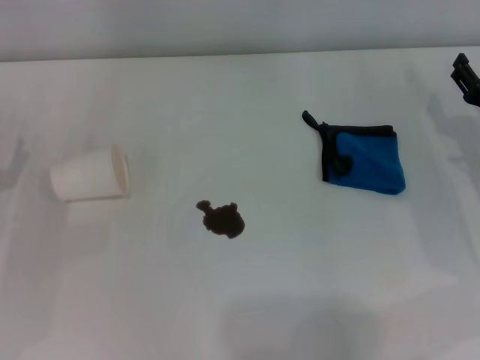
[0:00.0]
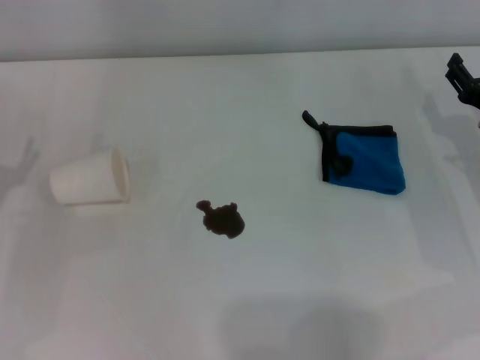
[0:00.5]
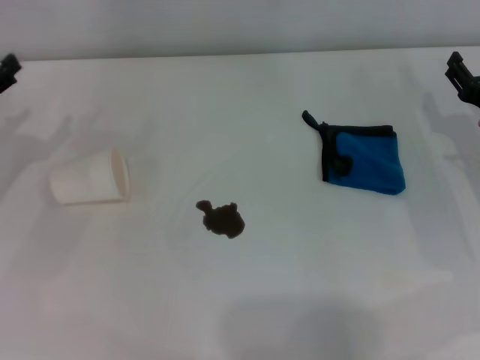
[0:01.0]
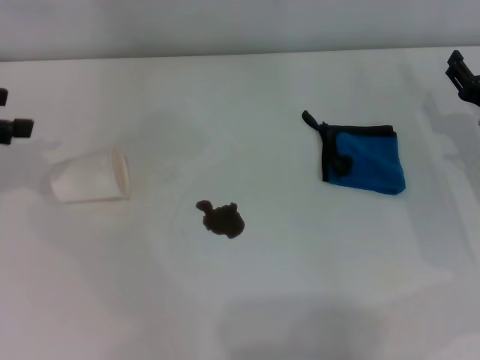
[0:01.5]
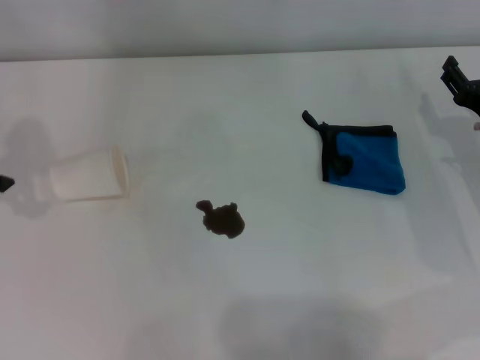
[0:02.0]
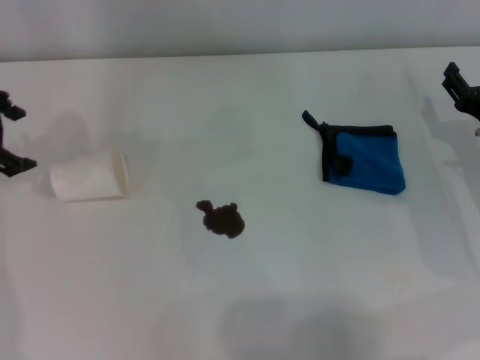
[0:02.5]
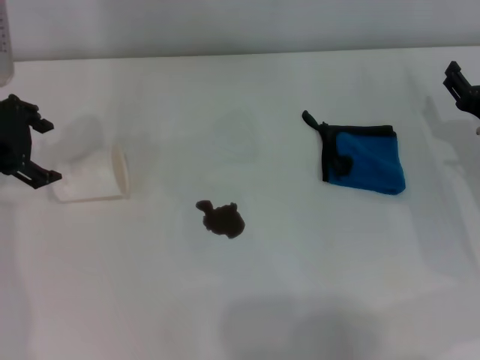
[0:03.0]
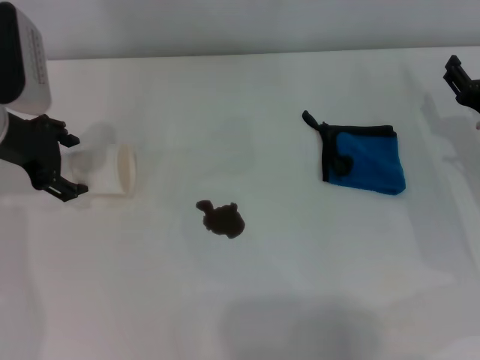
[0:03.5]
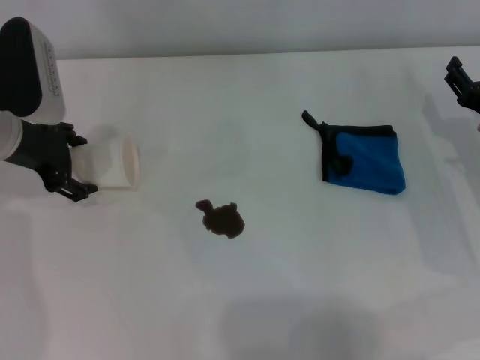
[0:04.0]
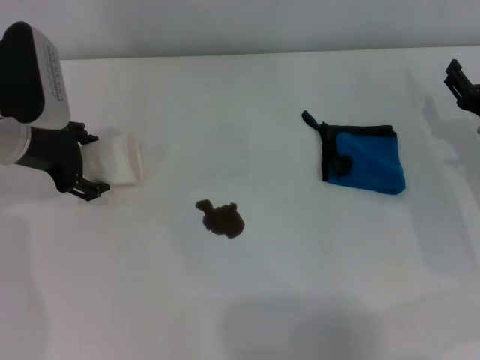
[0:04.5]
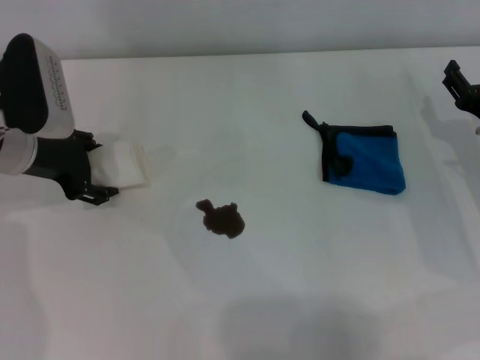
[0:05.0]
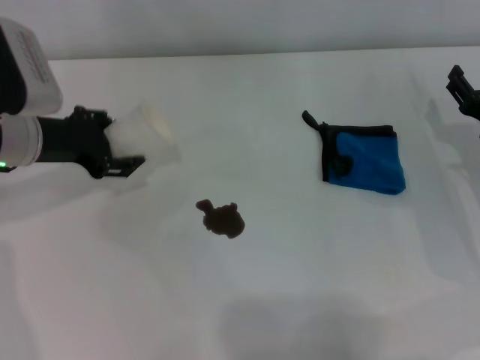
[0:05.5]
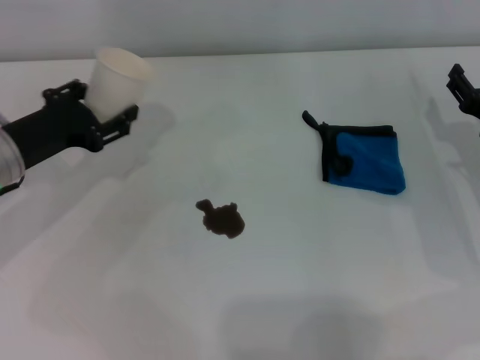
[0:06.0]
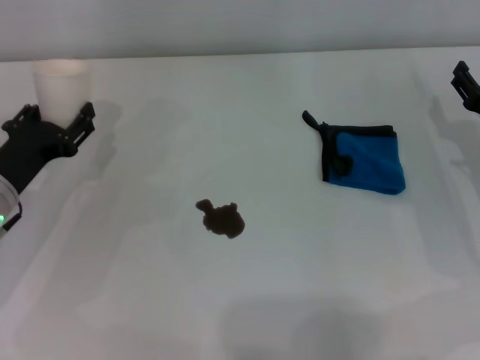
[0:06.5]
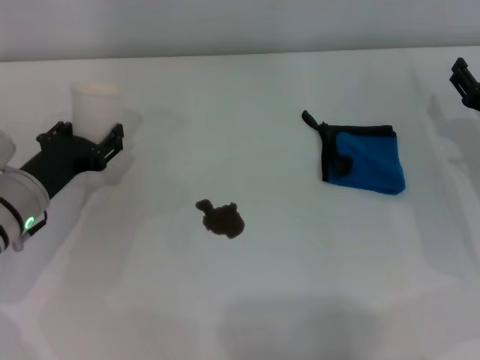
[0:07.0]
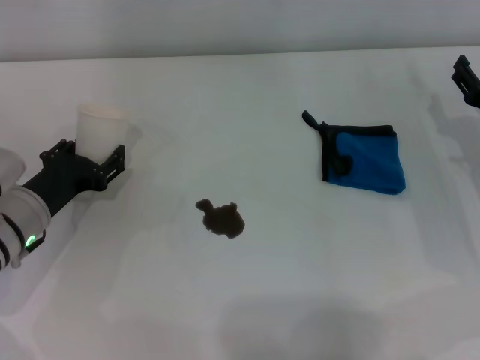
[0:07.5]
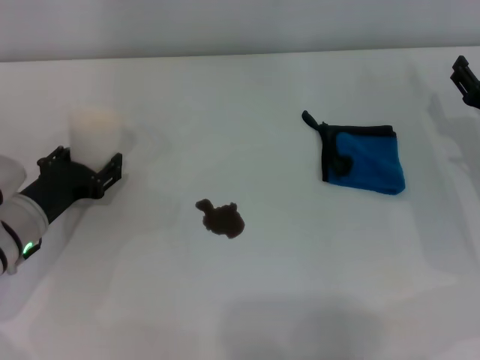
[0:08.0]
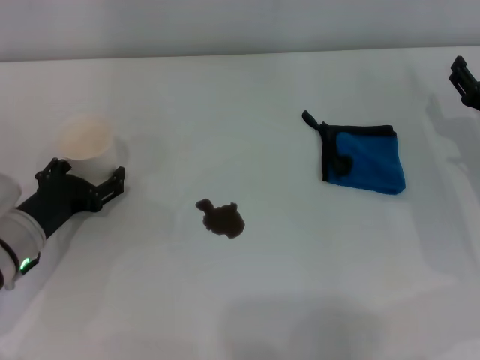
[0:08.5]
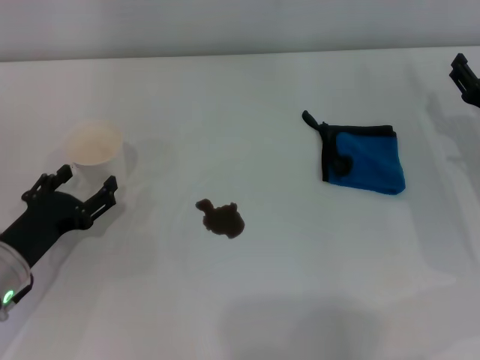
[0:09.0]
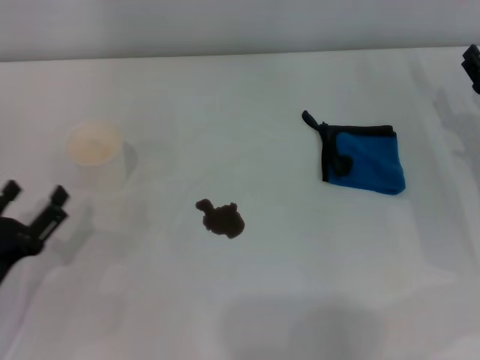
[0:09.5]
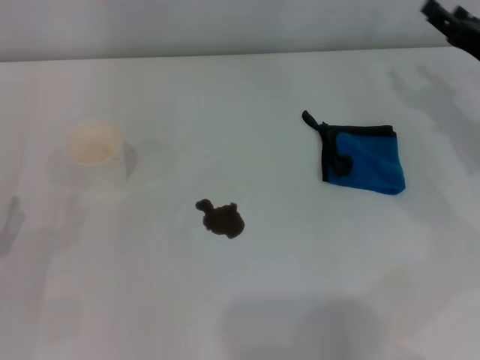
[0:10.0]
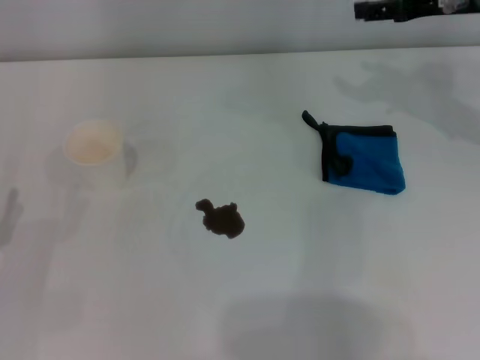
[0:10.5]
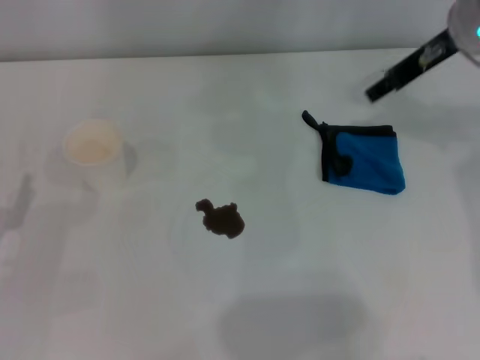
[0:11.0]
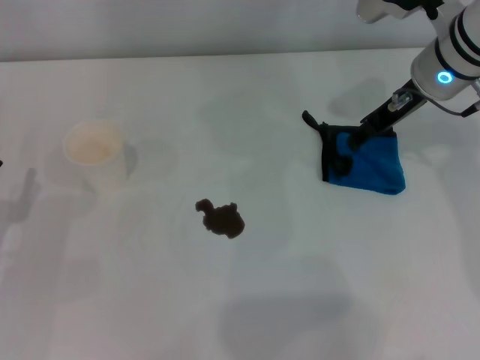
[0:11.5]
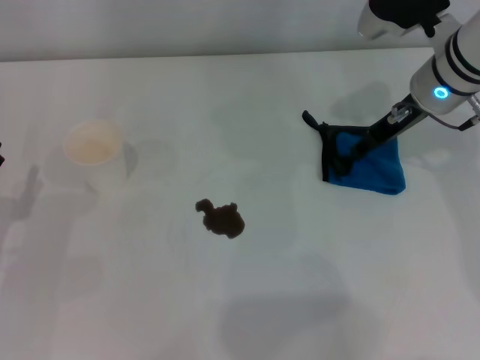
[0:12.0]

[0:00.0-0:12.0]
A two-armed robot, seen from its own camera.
Step, 0:00.0 to 0:03.0: Grasp the paper cup with the left gripper.
Step, 0:03.5 to 0:08.5: Stand the paper cup upright with the left gripper.
0:02.0 to 0:04.0: The left gripper travels to the right and downward by roughly 10 cm.
0:04.0 to 0:06.0: The left gripper heads backward, covering about 5 cm, and closes.
0:06.0 to 0:08.0: The left gripper goes about 5 cm downward.
0:08.0 to 0:10.0: The left gripper moves backward and to the left, about 15 cm, and opens its fingers. The right gripper heads upward, covering some 5 cm.
0:10.0 to 0:12.0: The right gripper travels to the left and forward by roughly 10 cm.

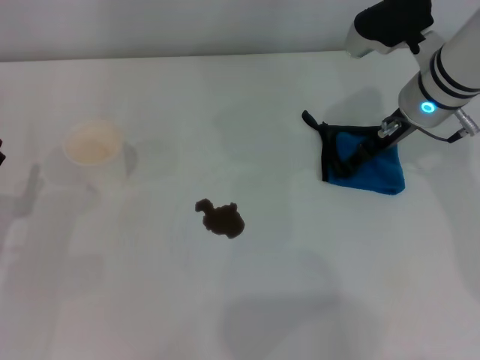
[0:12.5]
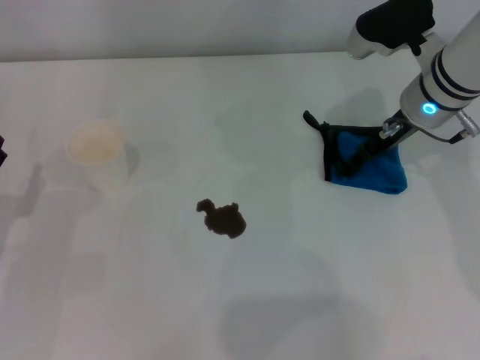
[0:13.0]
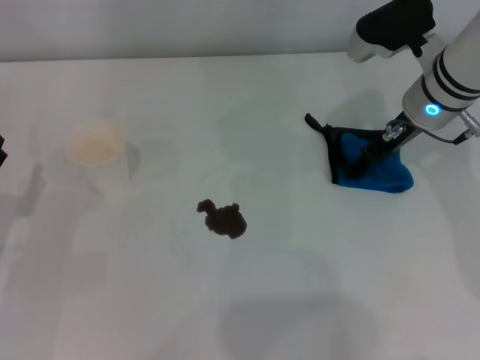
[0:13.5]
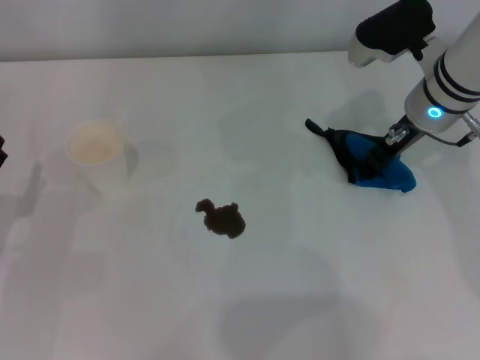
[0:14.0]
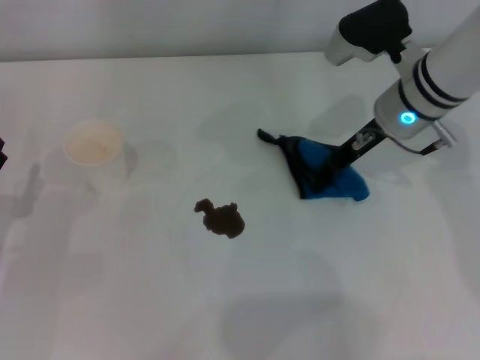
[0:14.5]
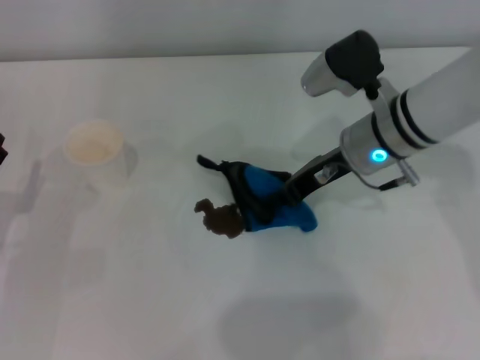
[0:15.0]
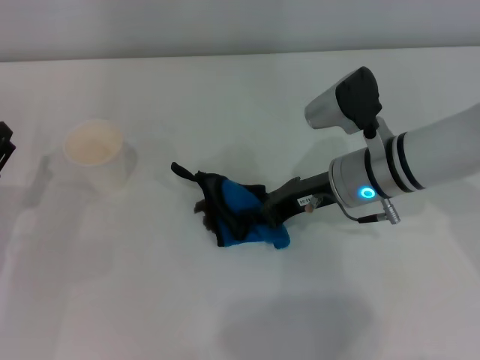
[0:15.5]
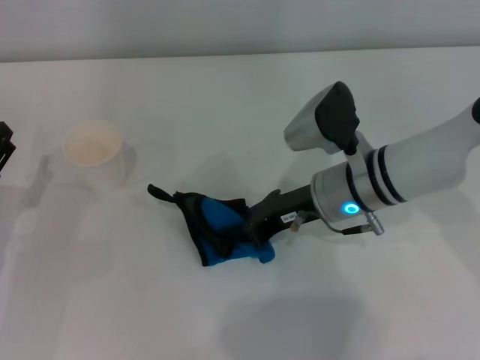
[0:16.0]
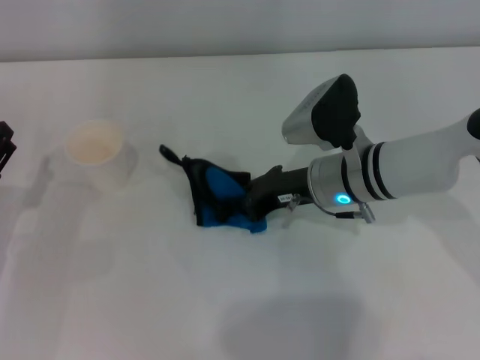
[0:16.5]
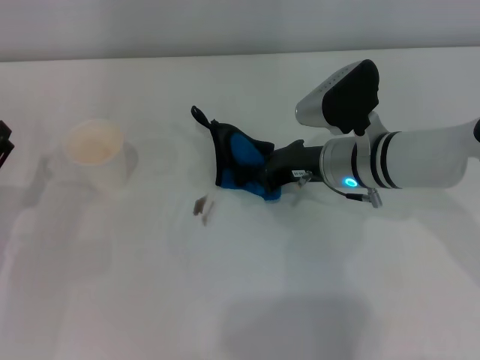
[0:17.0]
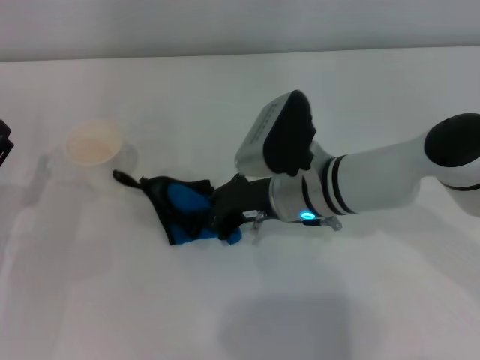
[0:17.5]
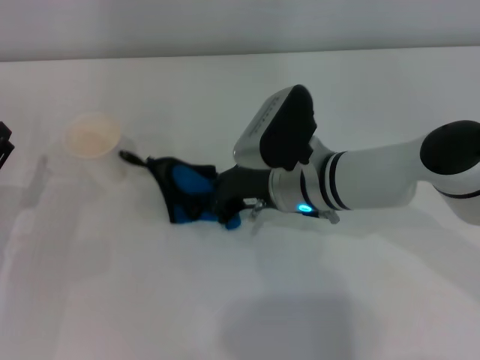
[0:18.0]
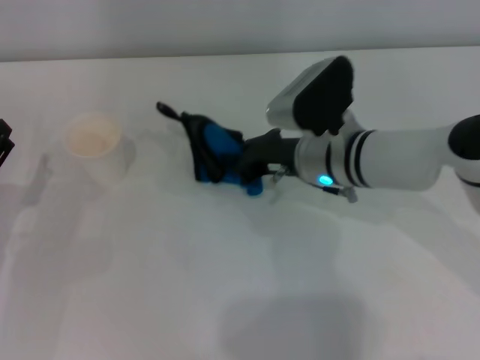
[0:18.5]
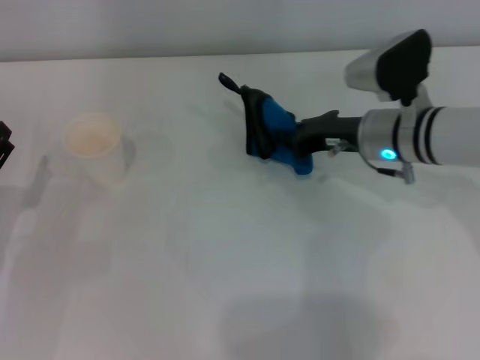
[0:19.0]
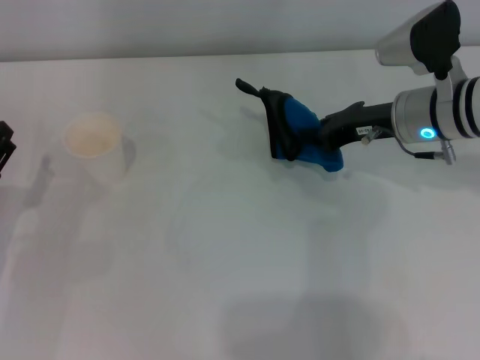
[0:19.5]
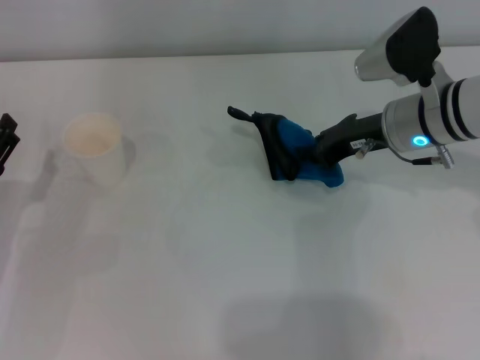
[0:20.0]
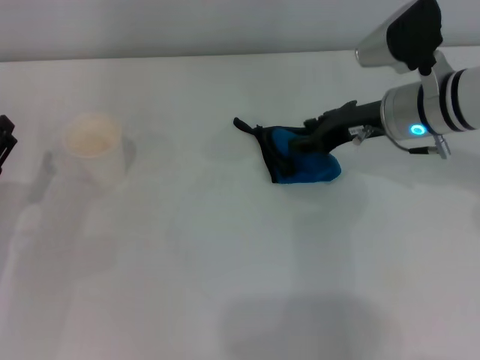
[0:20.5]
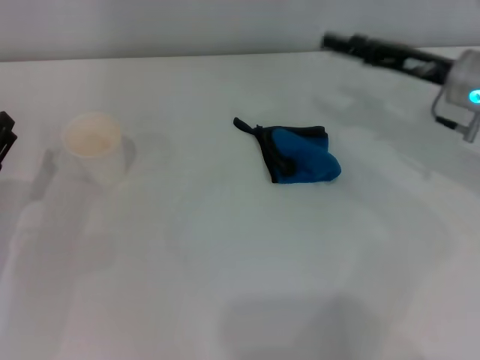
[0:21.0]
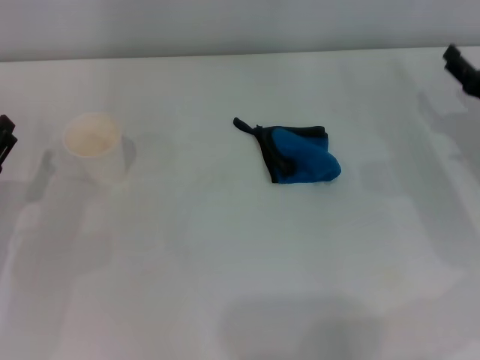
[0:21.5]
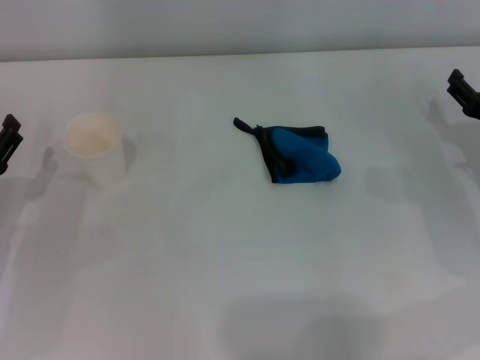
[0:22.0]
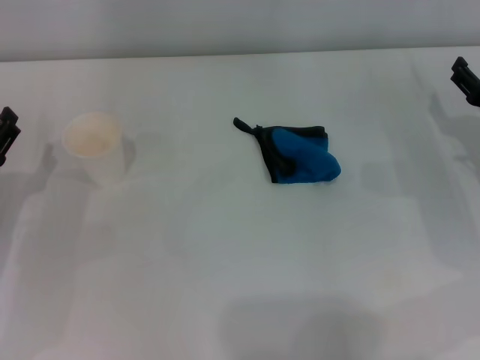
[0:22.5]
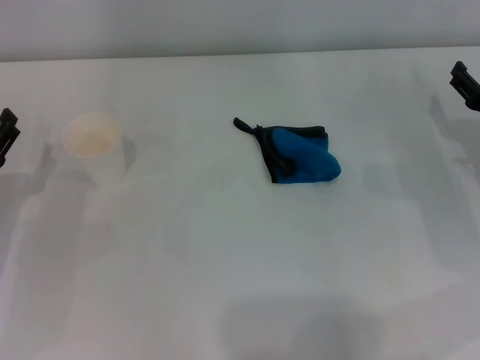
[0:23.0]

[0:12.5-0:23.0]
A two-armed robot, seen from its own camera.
Step, 0:14.0 to 0:18.5: Wipe the stains off the table with the right gripper.
Step, 0:19.0 to 0:20.5: Place the rag on the table with the right gripper.
0:12.5 to 0:14.5: The right gripper closes up.
0:14.5 to 0:16.5: The right gripper travels downward, to the left and backward by about 10 cm.
0:16.5 to 0:19.0: The right gripper shifts approximately 5 cm to the right.
0:19.0 to 0:21.0: The right gripper moves to the right, some 10 cm, and opens up.
0:21.0 to 0:23.0: The right gripper moves downward, backward and to the right, roughly 10 cm.

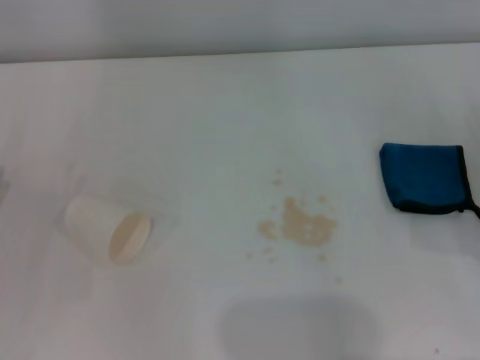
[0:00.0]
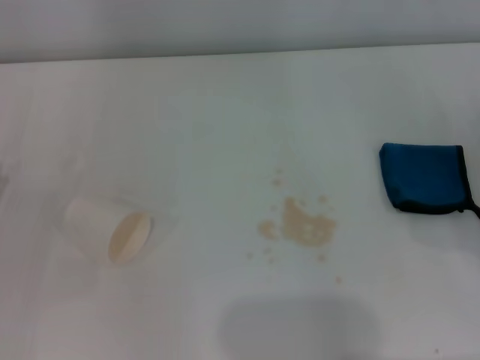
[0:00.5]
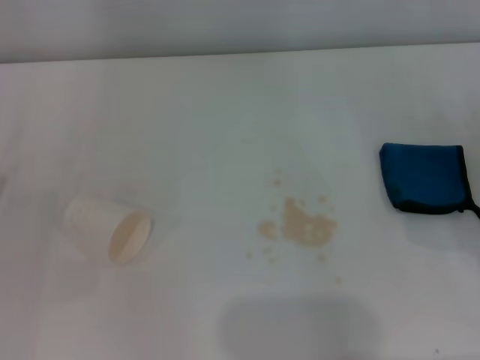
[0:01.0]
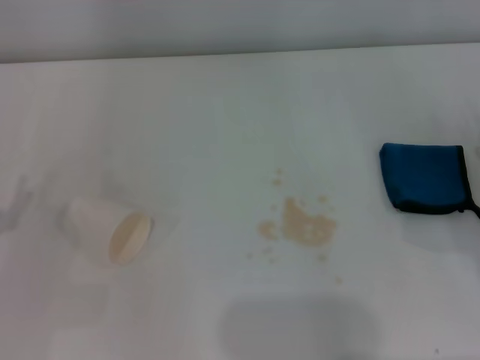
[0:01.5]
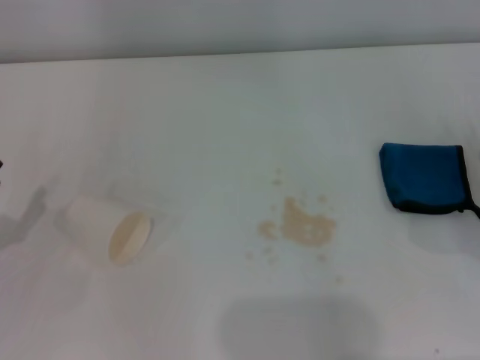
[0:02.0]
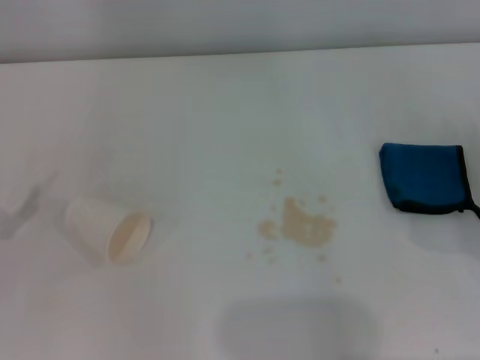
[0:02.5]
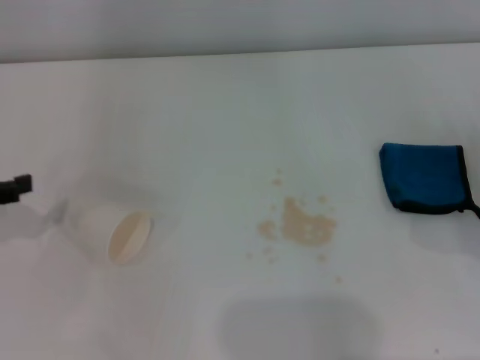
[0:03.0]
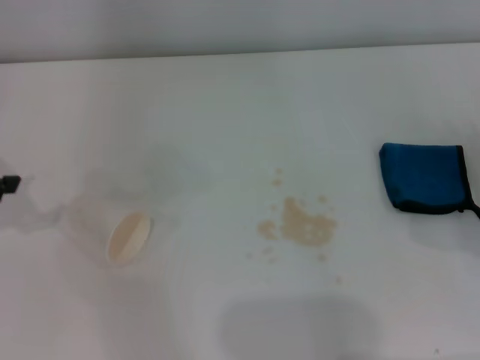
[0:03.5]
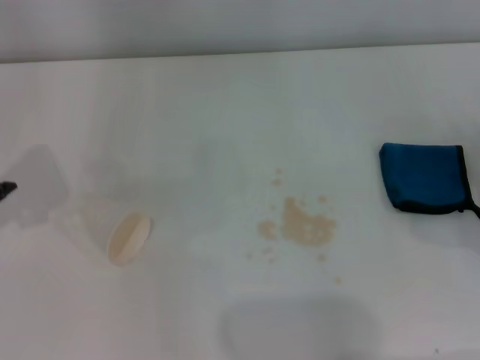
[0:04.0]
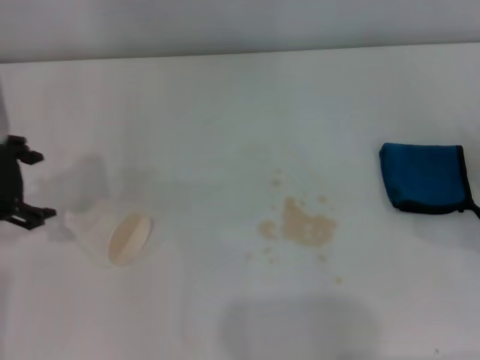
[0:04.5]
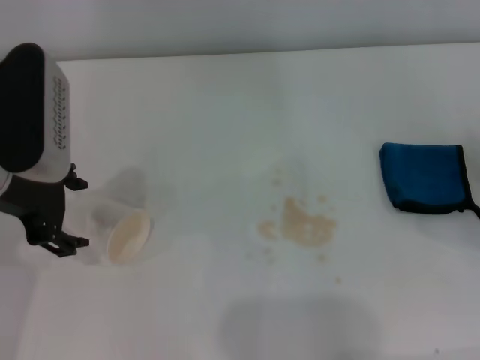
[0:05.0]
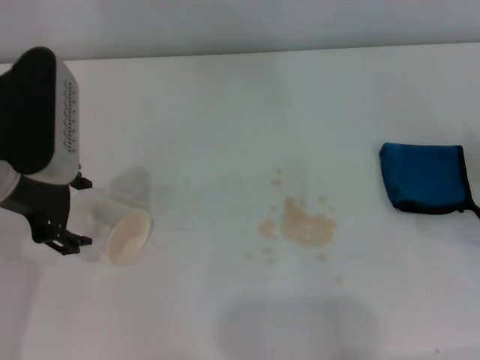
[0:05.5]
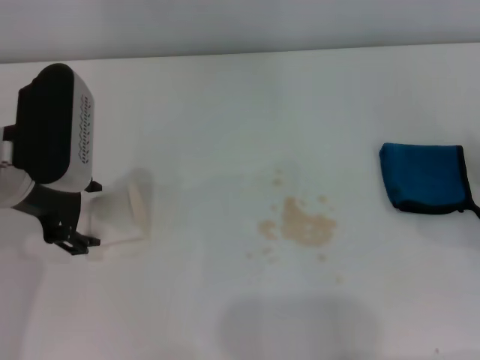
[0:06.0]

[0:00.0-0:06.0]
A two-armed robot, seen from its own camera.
0:04.0 to 0:06.0: The left gripper moves to the right, some 10 cm.
